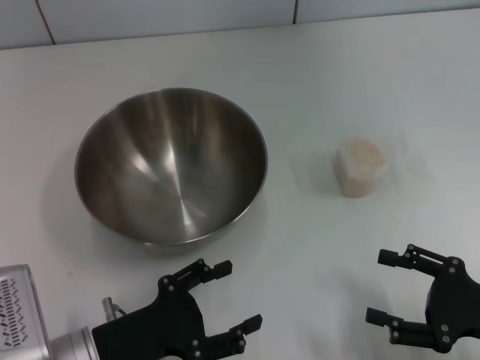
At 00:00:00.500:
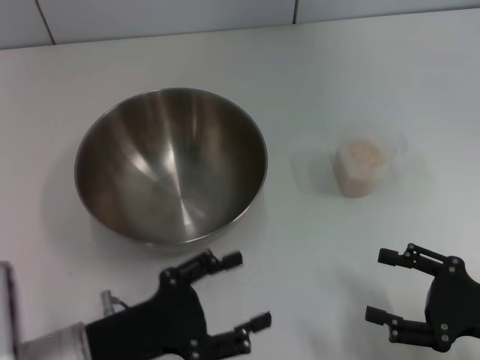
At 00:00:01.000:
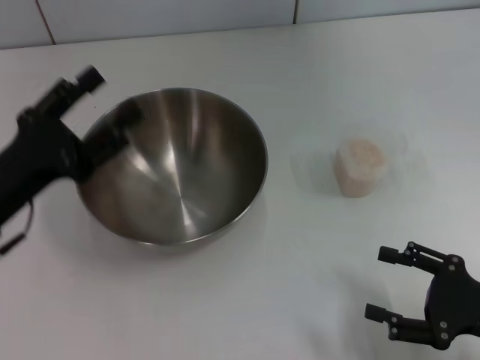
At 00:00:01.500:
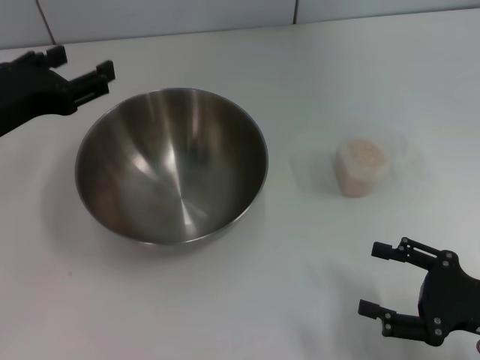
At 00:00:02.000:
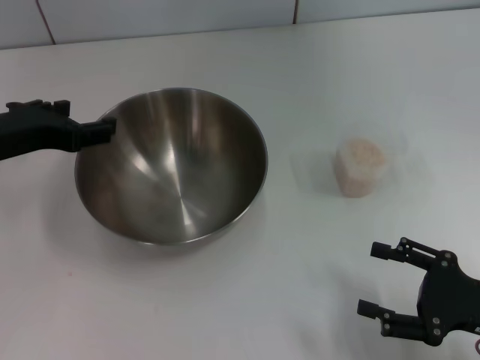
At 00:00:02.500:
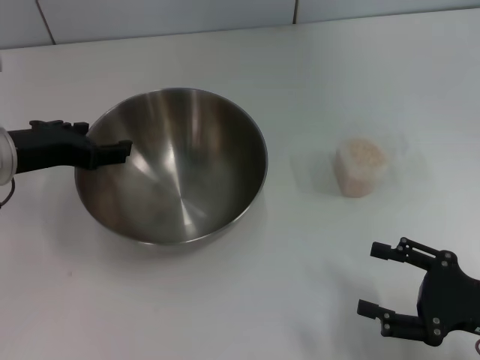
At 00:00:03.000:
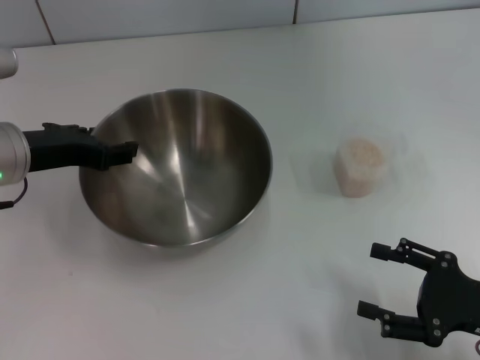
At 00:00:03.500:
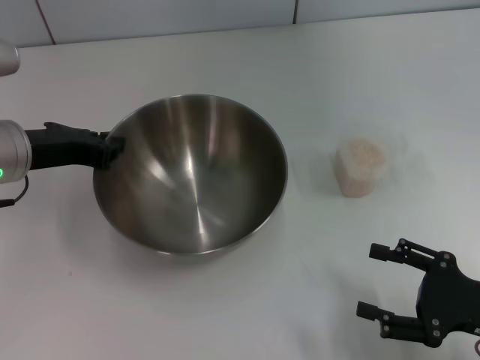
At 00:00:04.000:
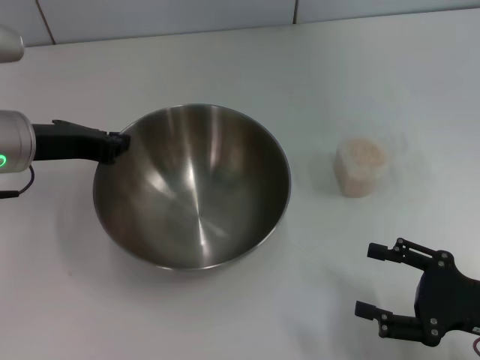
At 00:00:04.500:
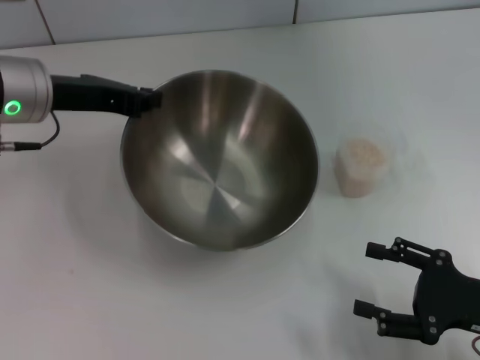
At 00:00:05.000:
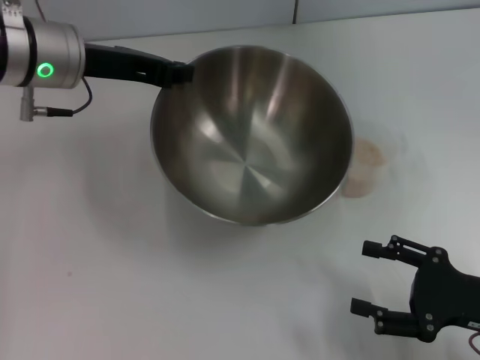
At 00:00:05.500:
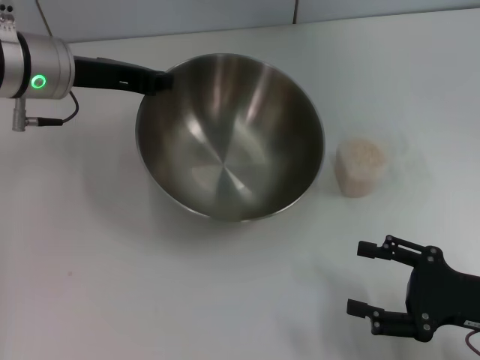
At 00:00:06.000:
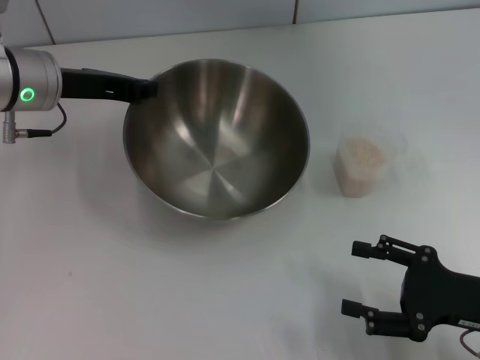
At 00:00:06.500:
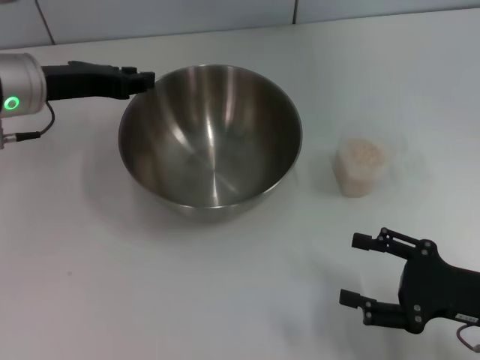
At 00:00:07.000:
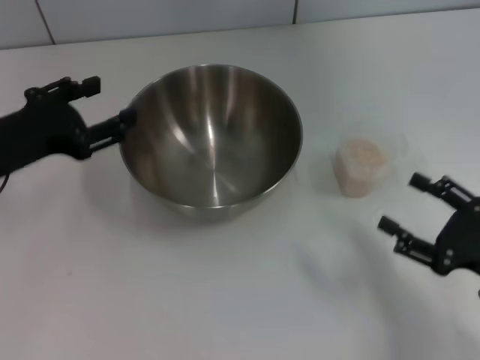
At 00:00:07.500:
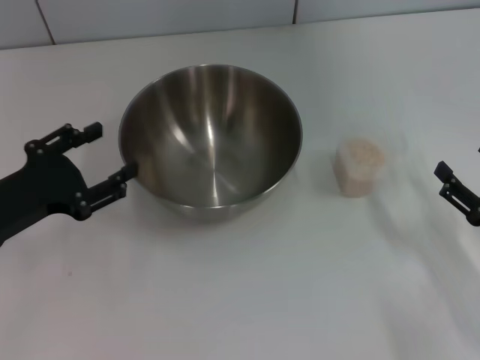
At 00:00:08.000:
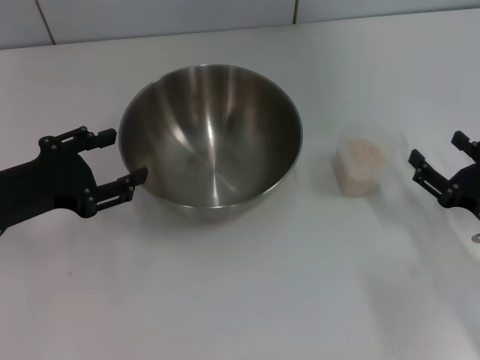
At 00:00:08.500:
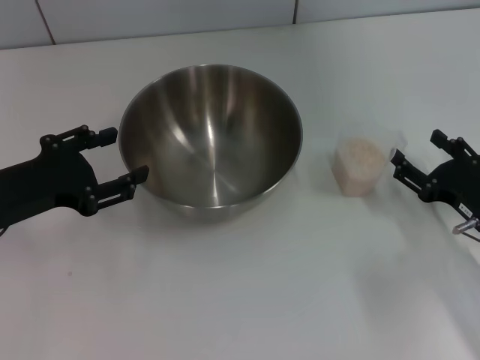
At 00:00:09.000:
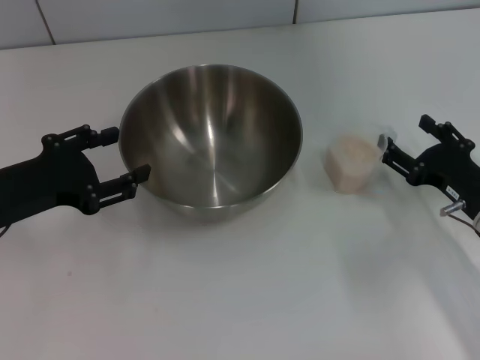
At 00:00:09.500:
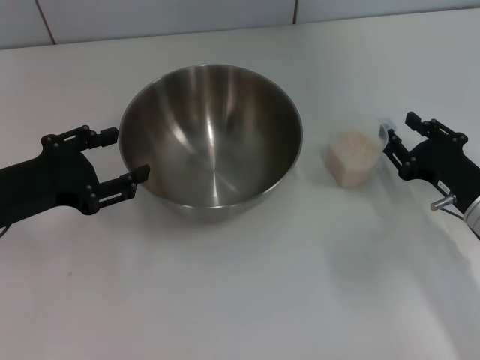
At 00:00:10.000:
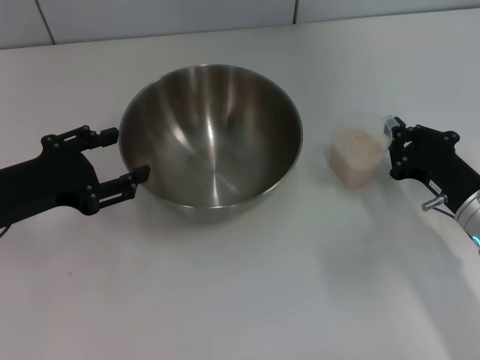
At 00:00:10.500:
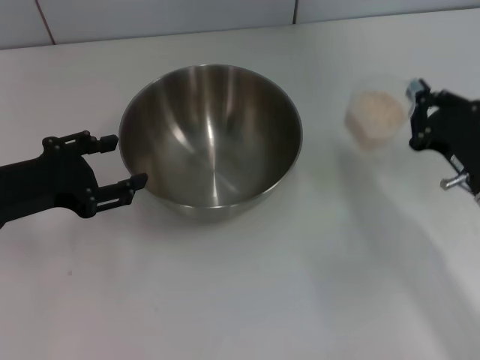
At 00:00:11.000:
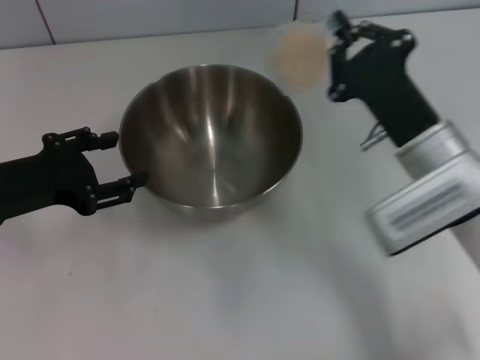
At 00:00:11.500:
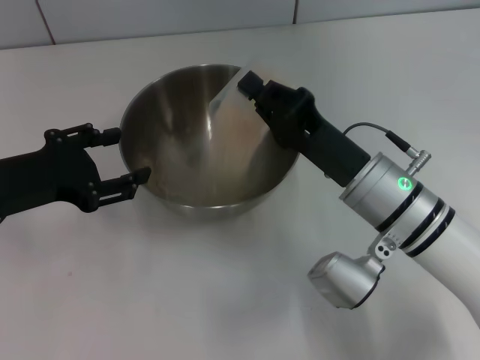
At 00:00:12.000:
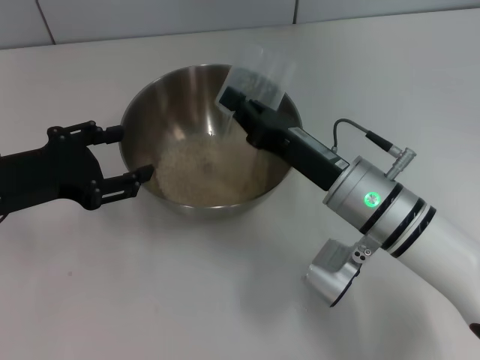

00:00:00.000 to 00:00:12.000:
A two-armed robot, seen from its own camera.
Task of the whole recording: Place the bowl in the middle of the table with one hand and pour the rice from the grain cup into it with the other hand.
Step, 00:00:00.000 to 00:00:04.000: Pick up the bowl with the left gripper.
Step, 00:00:04.500 to 00:00:06.500: Place the bowl in the center of view with the left gripper.
Step, 00:00:07.000 to 00:00:10.500: Pick up the cup with rice in it with the right gripper.
00:00:00.000 to 00:00:02.000: The left gripper travels upward and forward by some 20 cm.
00:00:02.000 to 00:00:04.000: The left gripper closes up.
00:00:04.000 to 00:00:06.000: The left gripper goes roughly 5 cm forward.
00:00:06.000 to 00:00:08.000: The right gripper ends up about 5 cm from where it was; the left gripper heads backward and to the left, covering about 15 cm, and opens.
00:00:08.000 to 00:00:10.000: The right gripper moves about 5 cm, and closes.
00:00:10.000 to 00:00:12.000: The right gripper travels to the left by roughly 15 cm.

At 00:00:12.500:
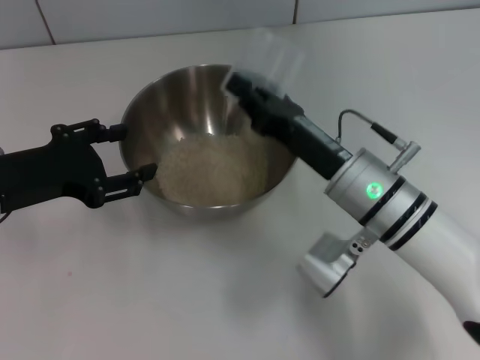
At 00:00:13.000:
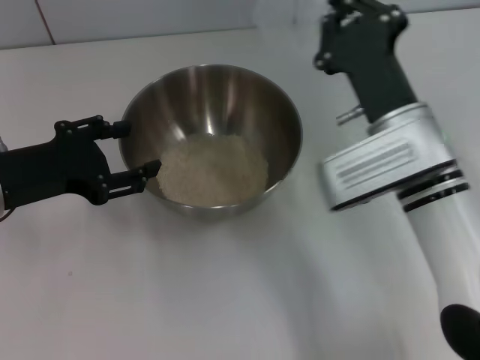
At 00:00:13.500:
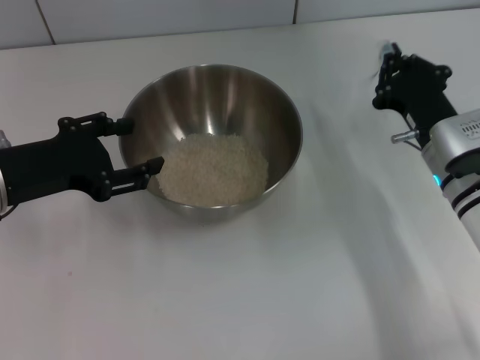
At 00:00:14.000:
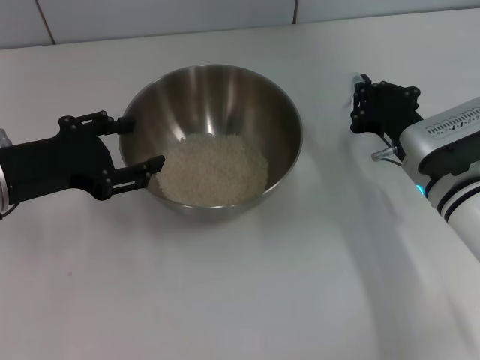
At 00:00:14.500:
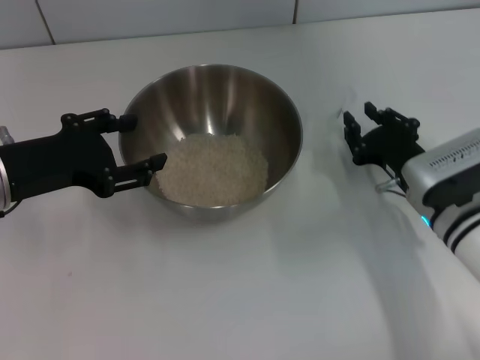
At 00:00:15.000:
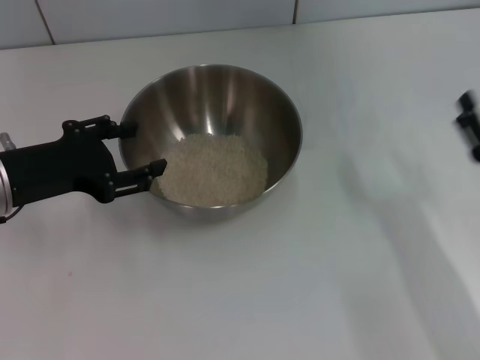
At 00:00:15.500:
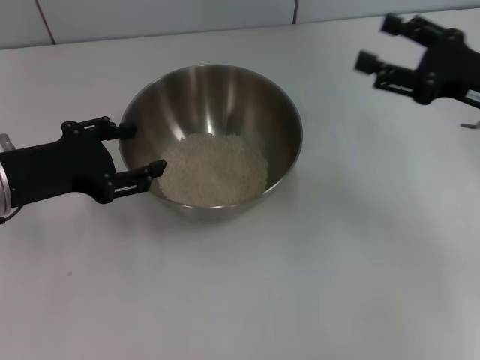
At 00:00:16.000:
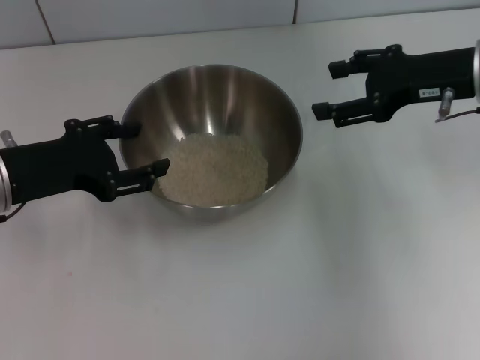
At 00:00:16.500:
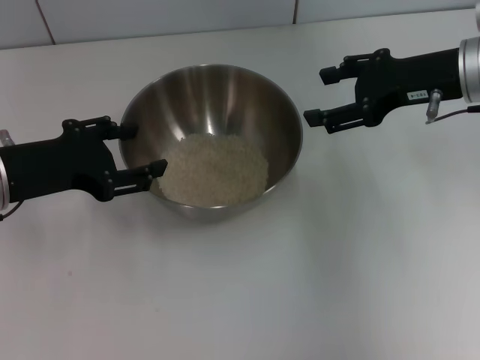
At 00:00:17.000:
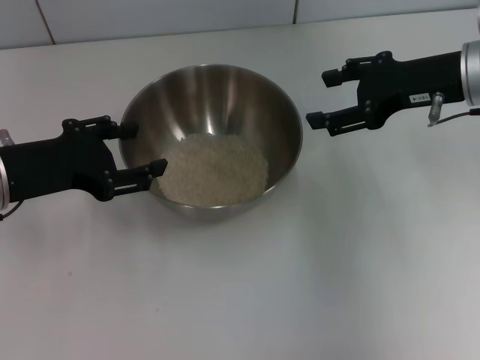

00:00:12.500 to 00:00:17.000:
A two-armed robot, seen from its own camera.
Task of the whole recording: Place the bowl in the middle of the table with one hand and pour the rice from the grain cup into it with the other hand.
Step, 00:00:13.000 to 00:00:14.500: Place the cup on the table with the right gripper.
00:00:12.500 to 00:00:14.500: The right gripper is displaced to the right and downward by some 10 cm.
00:00:14.500 to 00:00:17.000: The right gripper travels upward and forward by about 20 cm, and opens its fingers.
